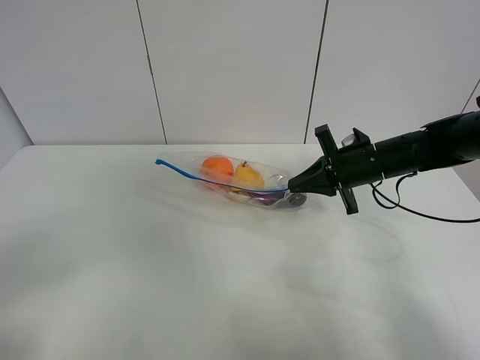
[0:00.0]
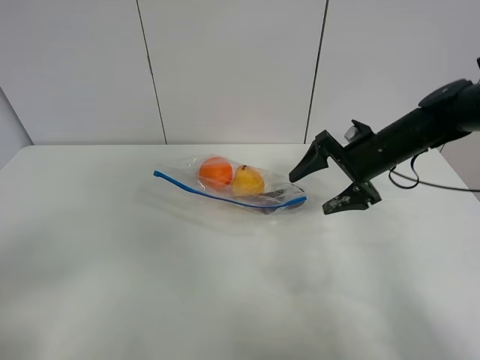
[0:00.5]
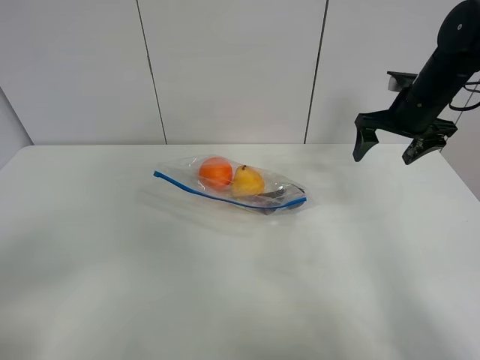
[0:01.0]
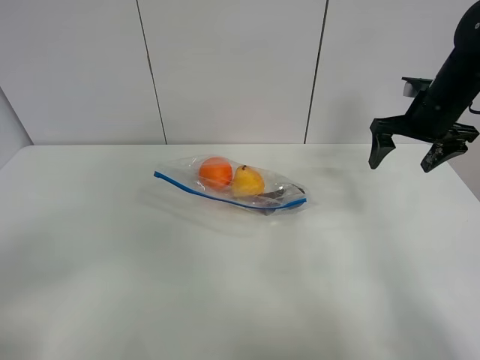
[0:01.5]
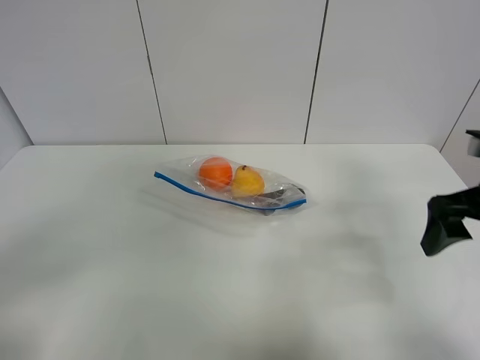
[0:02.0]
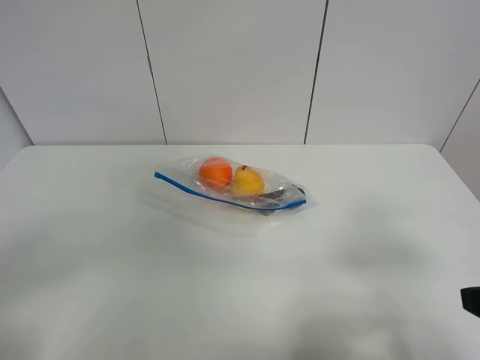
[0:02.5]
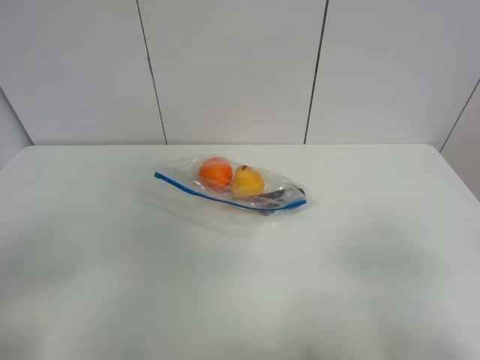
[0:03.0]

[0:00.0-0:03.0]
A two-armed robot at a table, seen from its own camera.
0:00.0 to 0:01.5: The right gripper goes about 10 cm upward and to the right, and opens its fingers.
0:01.5 to 0:03.0: The right gripper shifts approximately 40 cm backward.

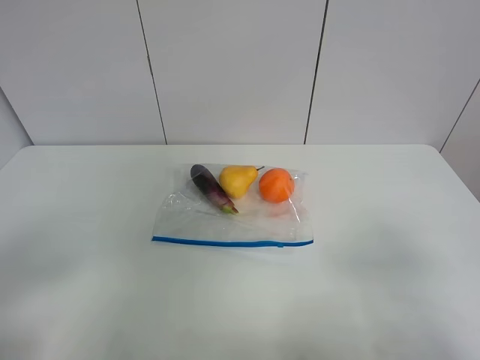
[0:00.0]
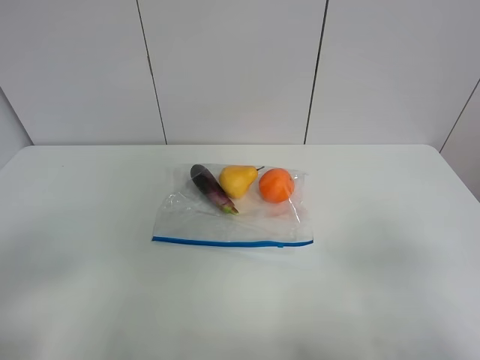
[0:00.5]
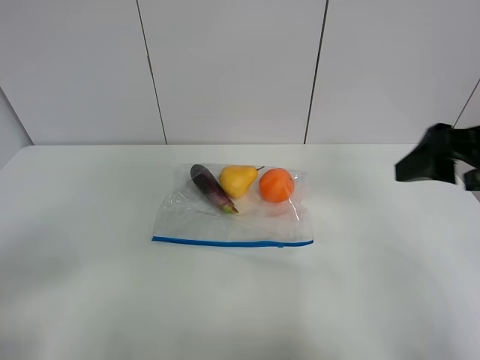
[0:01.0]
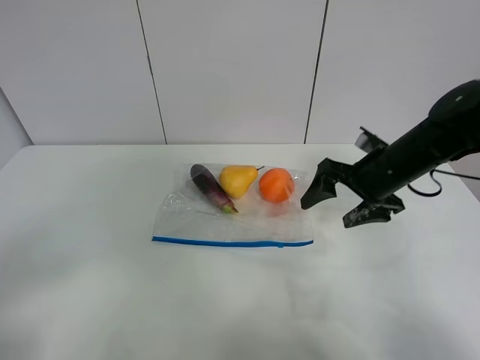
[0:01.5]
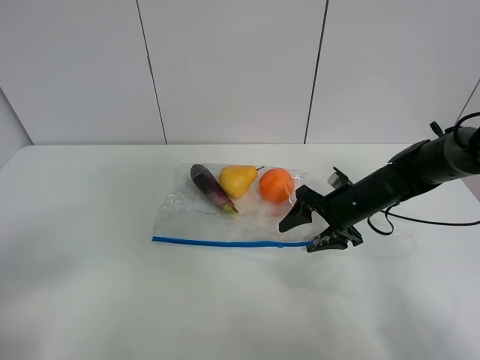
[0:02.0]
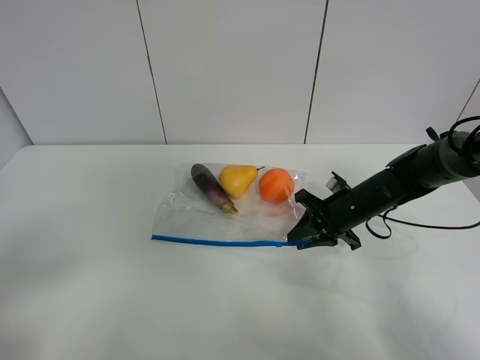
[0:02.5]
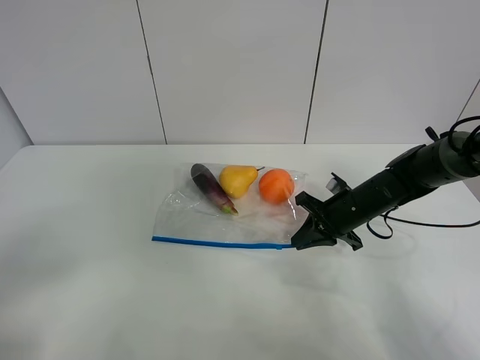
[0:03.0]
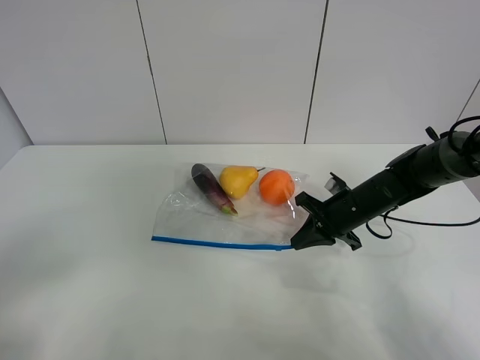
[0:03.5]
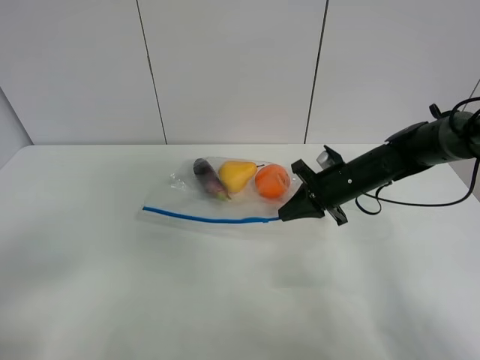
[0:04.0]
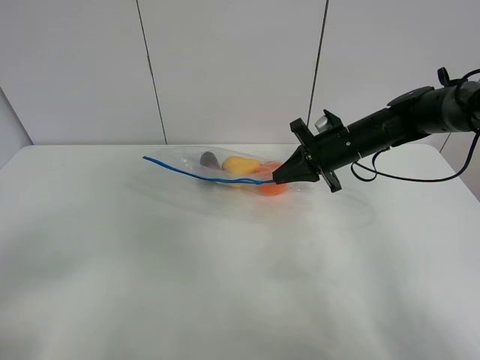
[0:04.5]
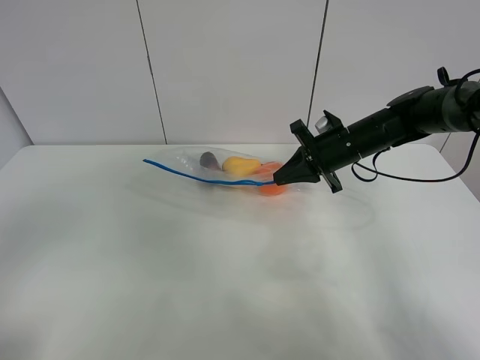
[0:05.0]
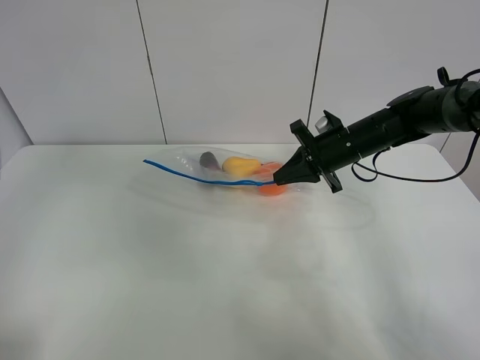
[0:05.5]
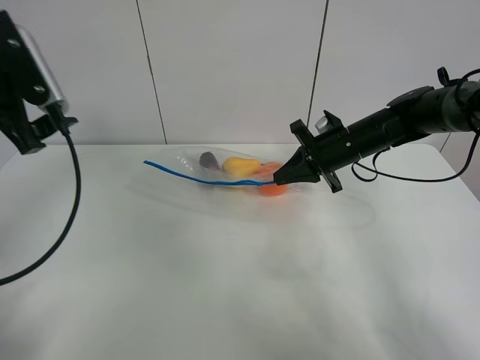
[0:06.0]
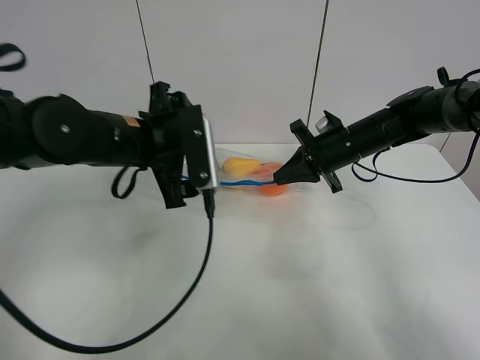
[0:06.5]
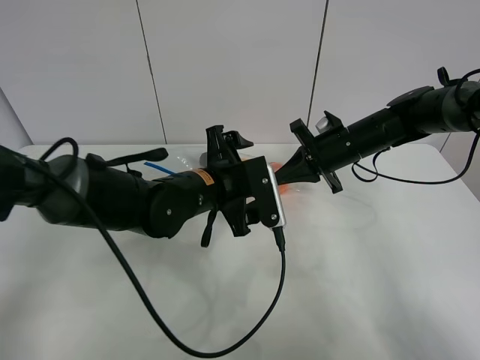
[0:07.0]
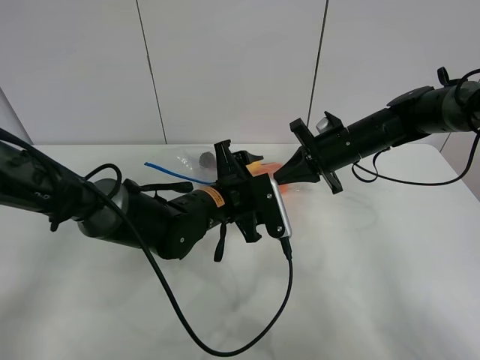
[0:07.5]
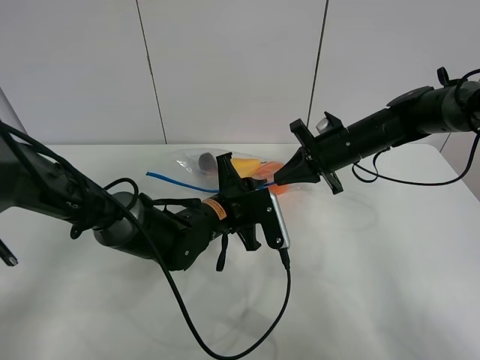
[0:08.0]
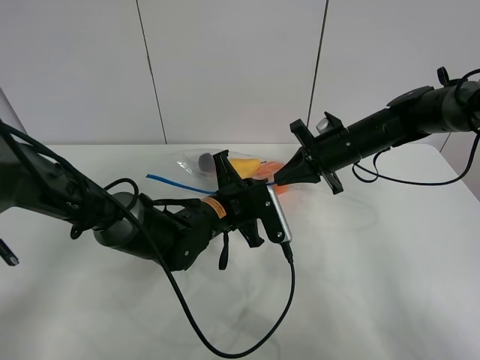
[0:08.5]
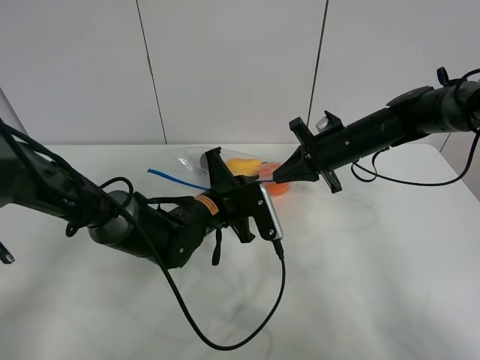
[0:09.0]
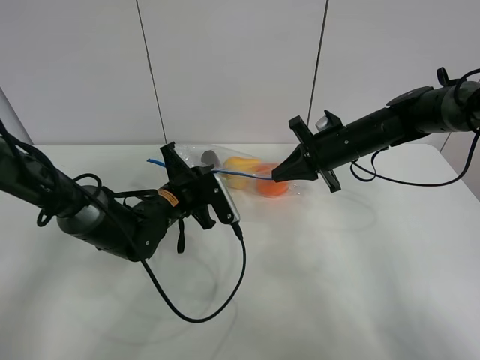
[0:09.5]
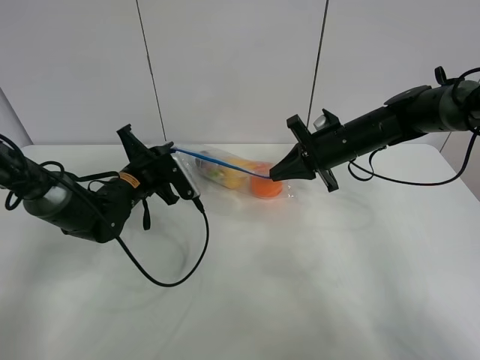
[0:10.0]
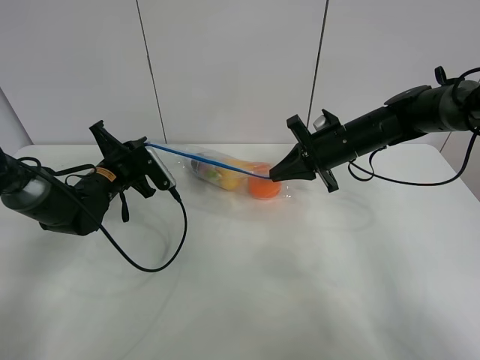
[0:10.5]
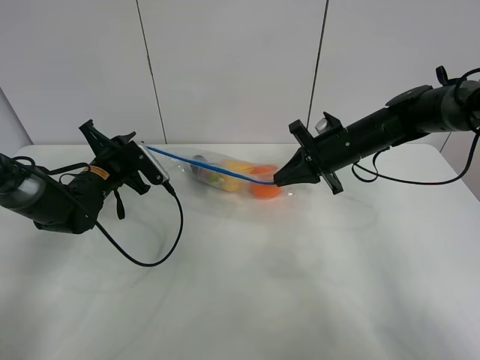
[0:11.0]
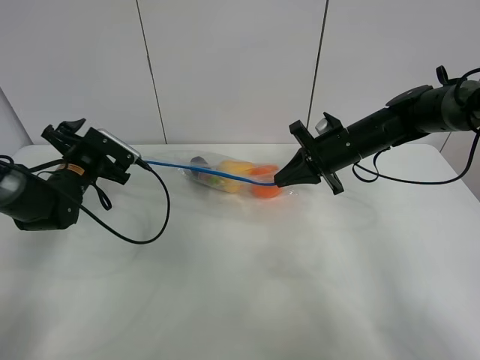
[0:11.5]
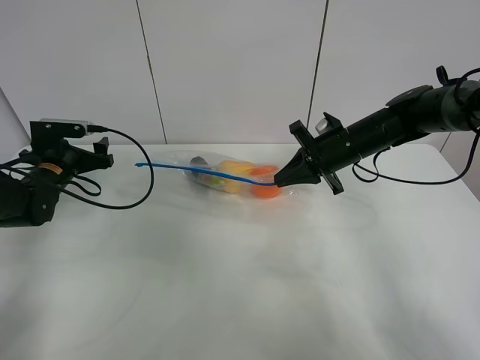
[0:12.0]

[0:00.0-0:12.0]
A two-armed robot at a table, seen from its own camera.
Step, 0:00.0 to 0:03.0: Grasp the fruit bag with right gripper.
Step, 0:03.5 to 0:04.5: Lift the fruit bag with your right gripper.
Step, 0:05.0 to 0:11.0: Pull the fruit bag with left gripper.
0:00.0 to 0:02.0: The right gripper travels forward and downward by roughly 40 cm.
0:02.0 to 0:04.0: The right gripper closes up.
0:04.0 to 0:06.0: The right gripper moves some 5 cm. The left gripper shifts roughly 30 cm forward.
0:06.0 to 0:08.0: The left gripper shifts approximately 30 cm to the right and downward, and closes.
0:08.0 to 0:10.0: The left gripper heads to the left, covering roughly 15 cm.
0:10.0 to 0:12.0: The left gripper heads to the left, covering some 15 cm, and opens.

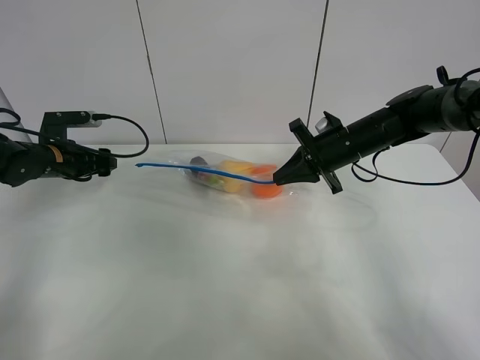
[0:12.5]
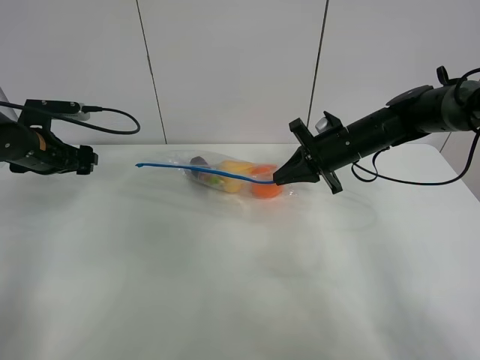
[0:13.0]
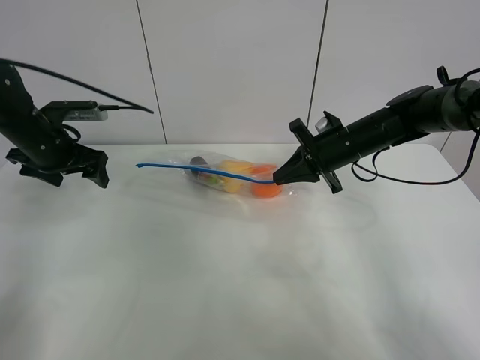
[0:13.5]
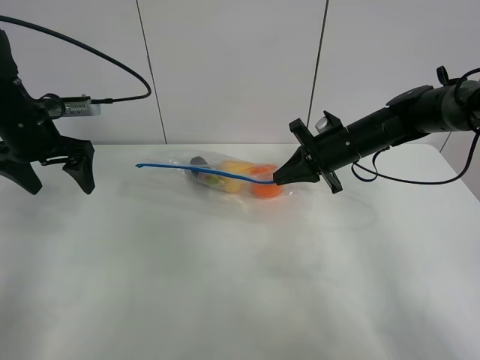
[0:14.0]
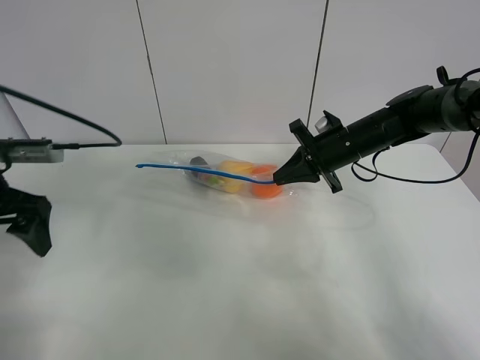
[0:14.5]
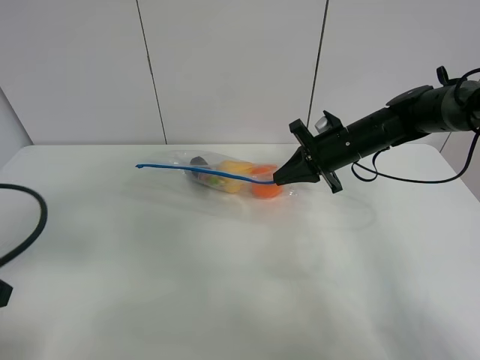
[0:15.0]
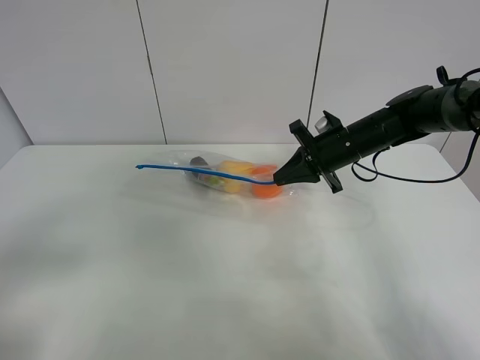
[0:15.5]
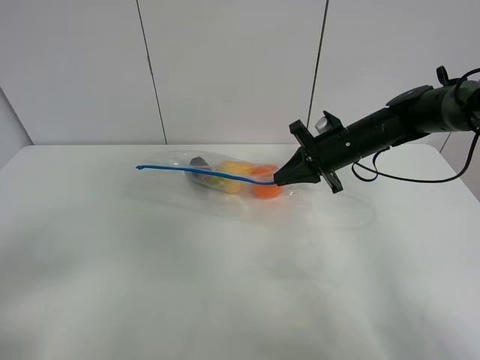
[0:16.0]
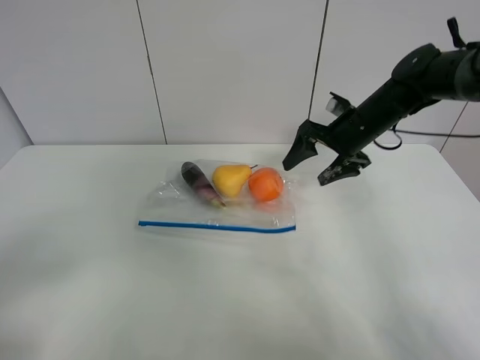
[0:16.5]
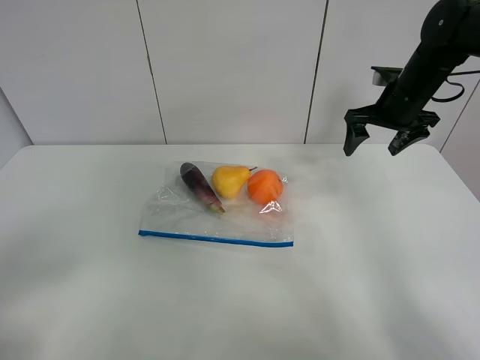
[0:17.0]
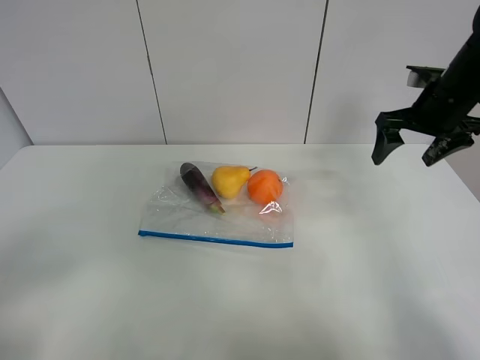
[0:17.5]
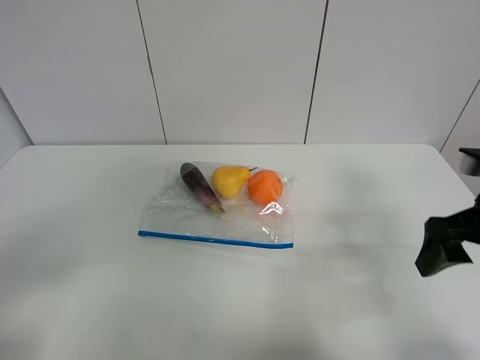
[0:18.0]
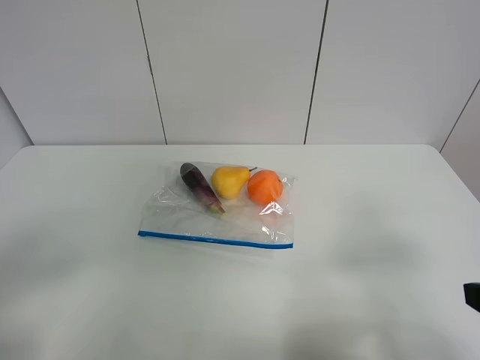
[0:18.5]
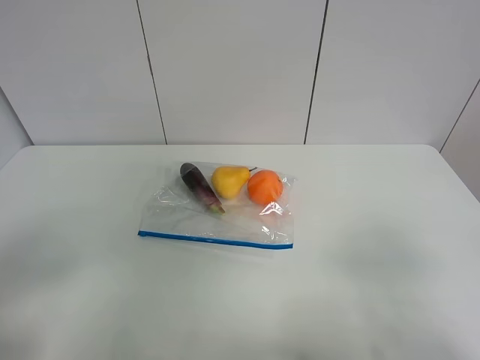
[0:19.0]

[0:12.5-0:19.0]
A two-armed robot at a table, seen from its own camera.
0:12.5 to 0:14.5: The left gripper moves backward and upward, approximately 20 cm.
0:14.5 to 0:17.0: The right gripper is displaced to the right and upward by approximately 10 cm, and opens. Meanwhile the left gripper is displaced backward by approximately 25 cm.
0:17.0 to 0:19.0: The right gripper shifts about 40 cm backward.
